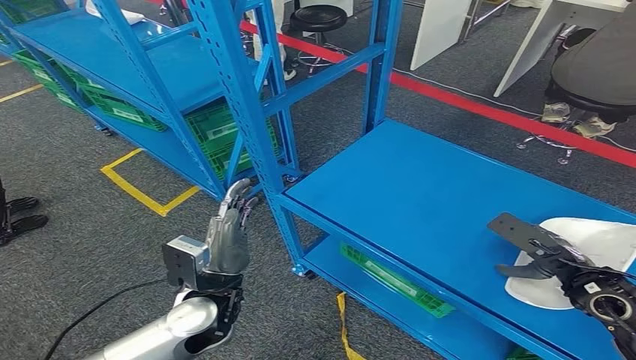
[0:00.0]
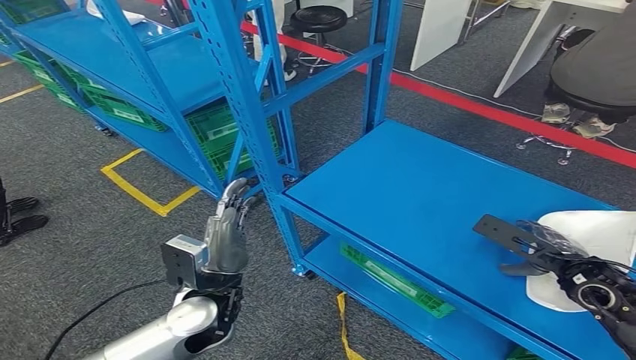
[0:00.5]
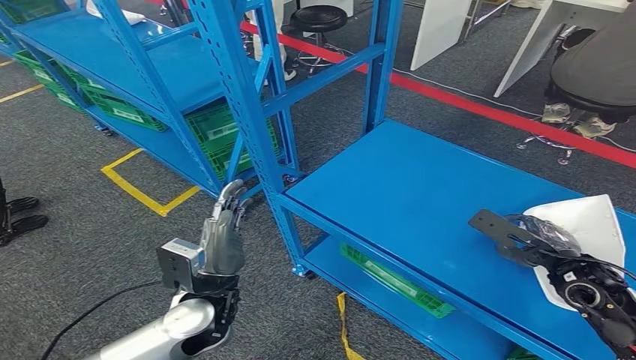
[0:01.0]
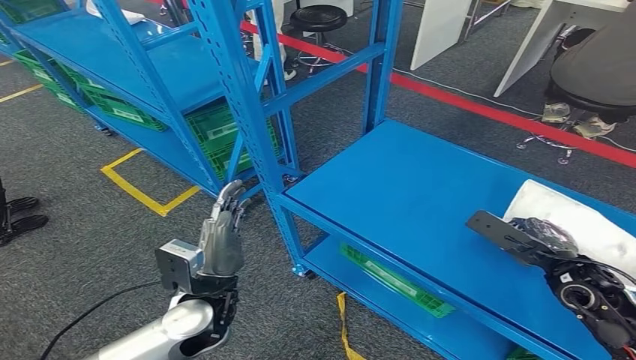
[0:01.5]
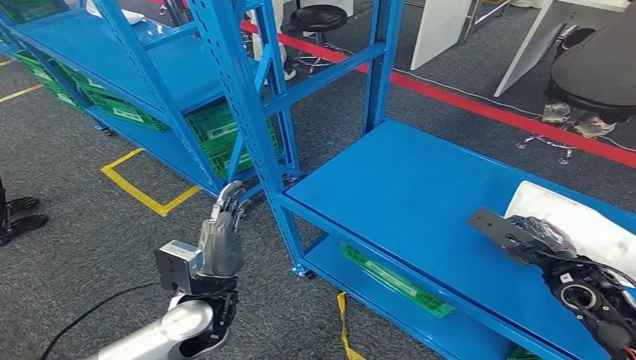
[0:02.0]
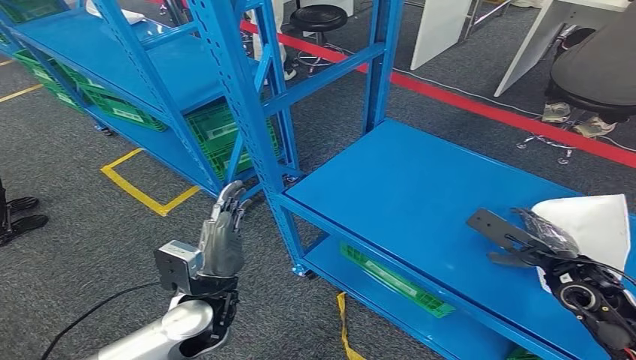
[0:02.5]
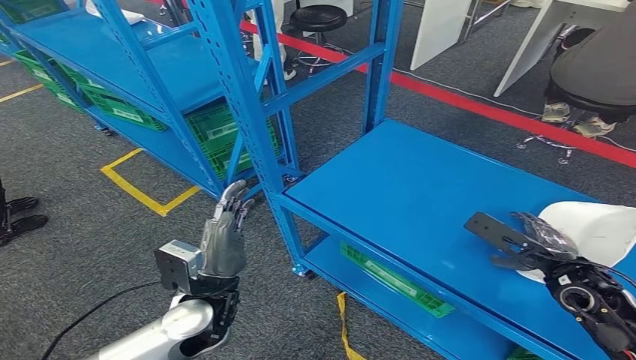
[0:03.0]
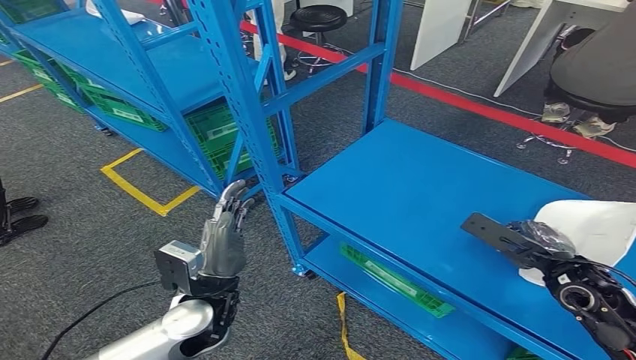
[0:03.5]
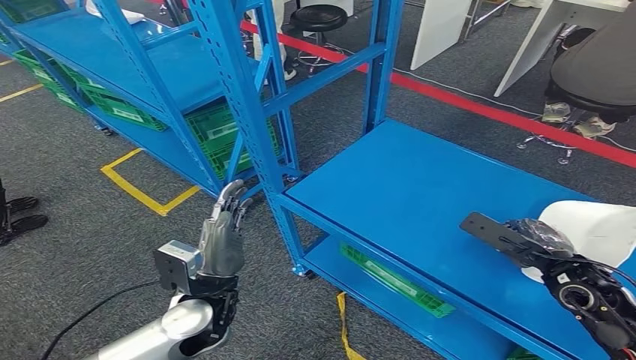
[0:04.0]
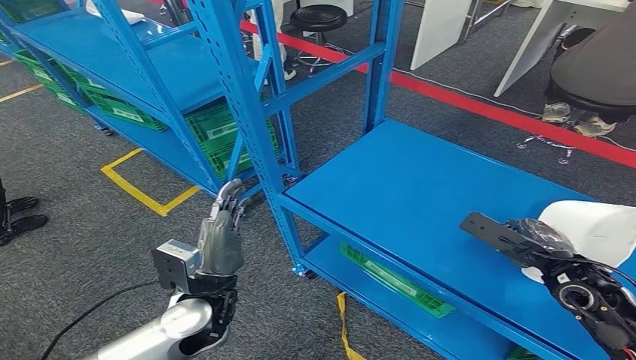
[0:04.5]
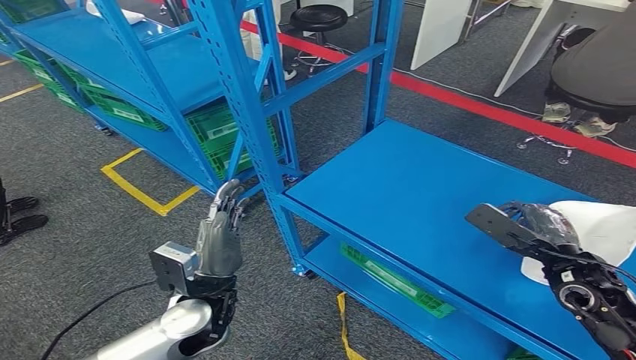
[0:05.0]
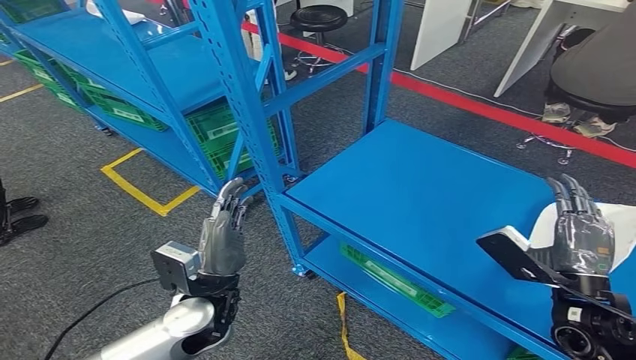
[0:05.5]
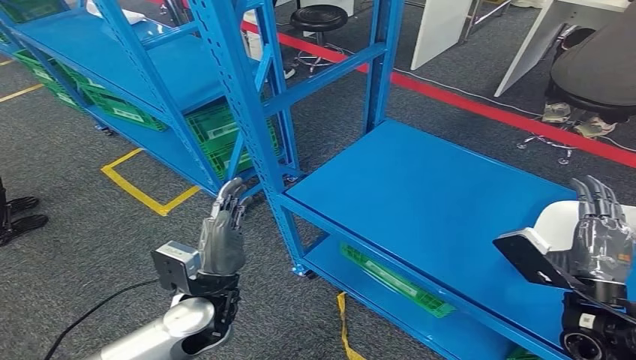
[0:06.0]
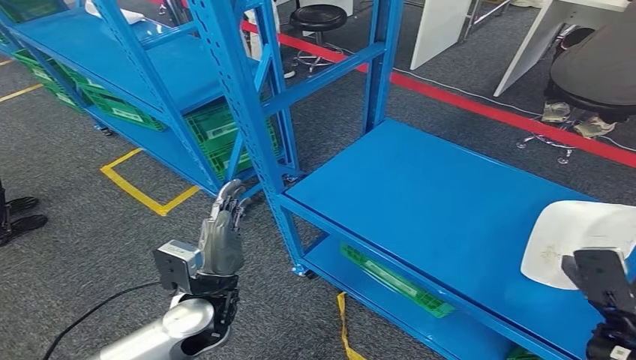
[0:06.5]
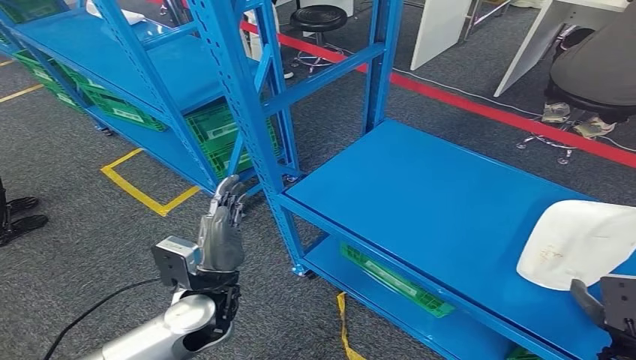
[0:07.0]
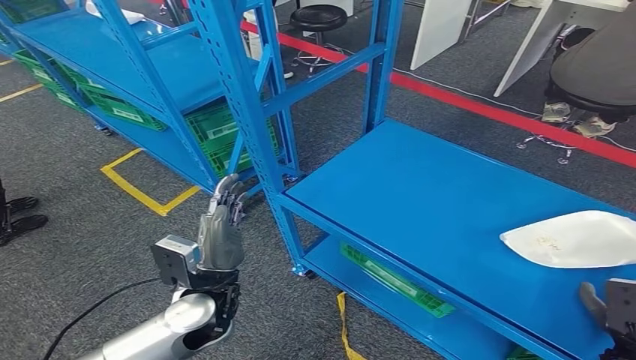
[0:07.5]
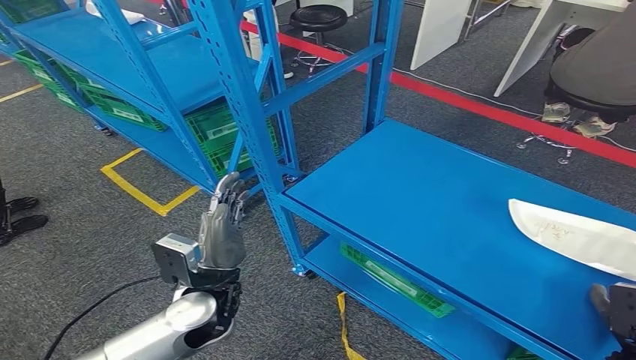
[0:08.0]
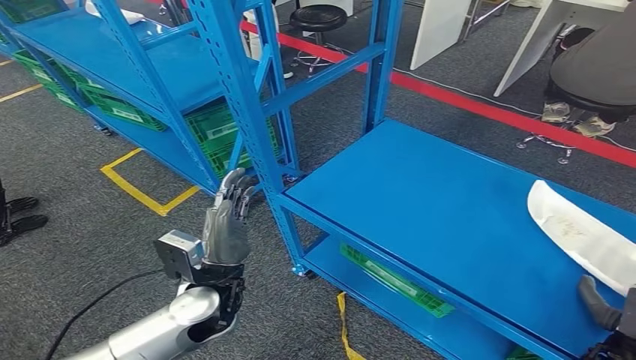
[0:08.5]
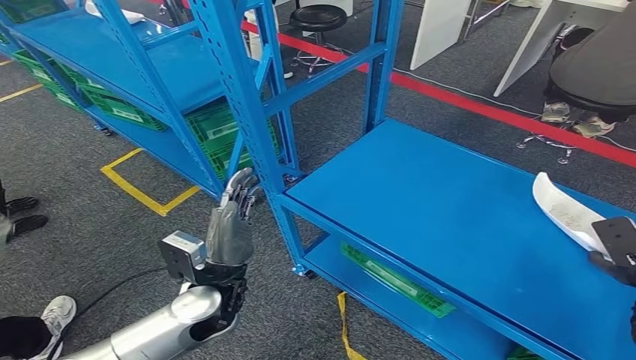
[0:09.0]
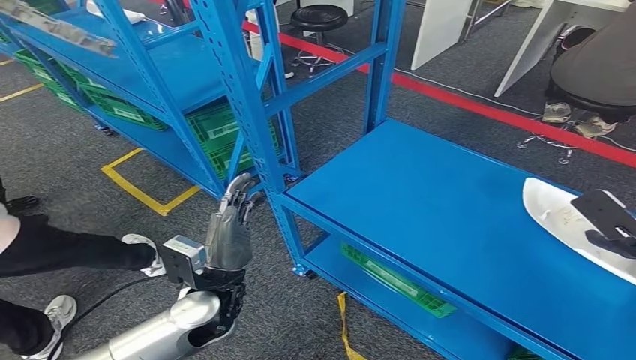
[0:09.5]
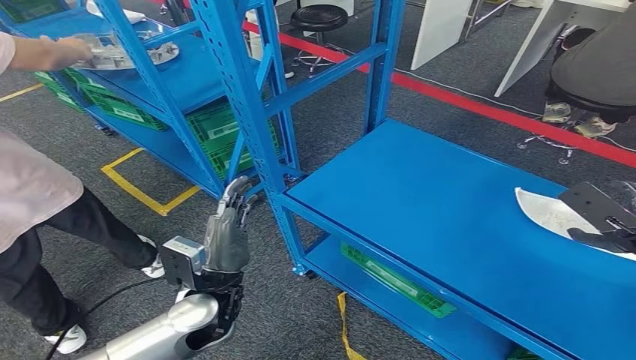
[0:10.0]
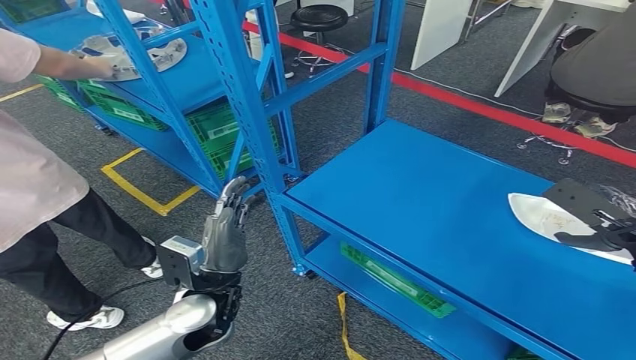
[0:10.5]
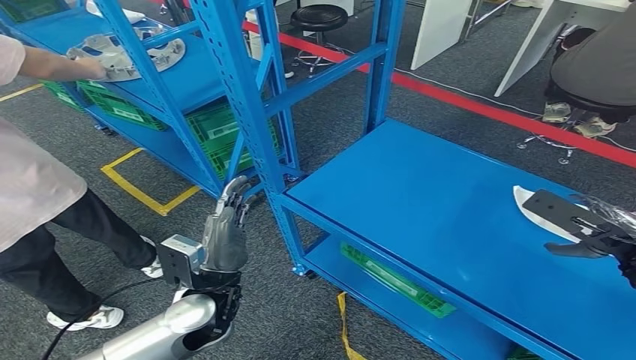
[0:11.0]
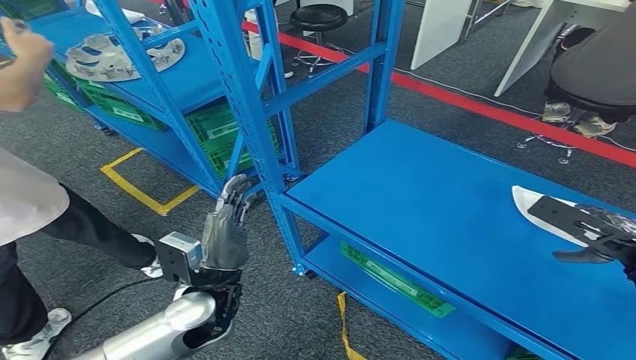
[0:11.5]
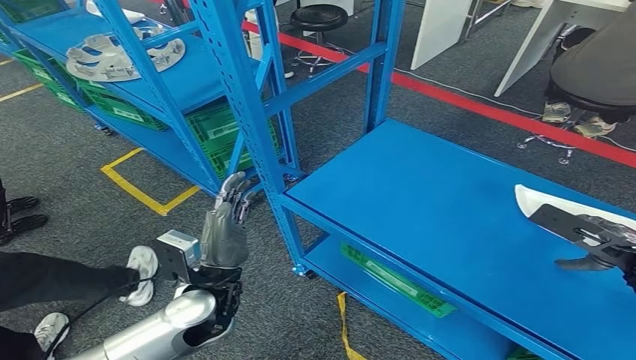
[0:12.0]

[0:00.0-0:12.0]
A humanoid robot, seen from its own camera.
0:00.0 to 0:04.0: The hands stay close to where they were, moving slightly.
0:04.0 to 0:06.0: The right hand heads backward, covering roughly 5 cm.
0:06.0 to 0:08.0: The right hand goes about 15 cm downward and to the right.
0:08.0 to 0:10.0: The right hand is displaced upward and forward by approximately 20 cm.

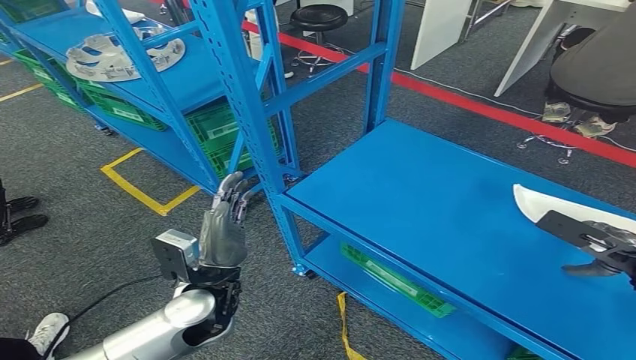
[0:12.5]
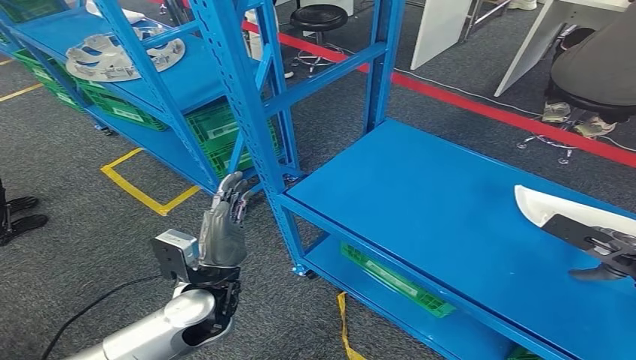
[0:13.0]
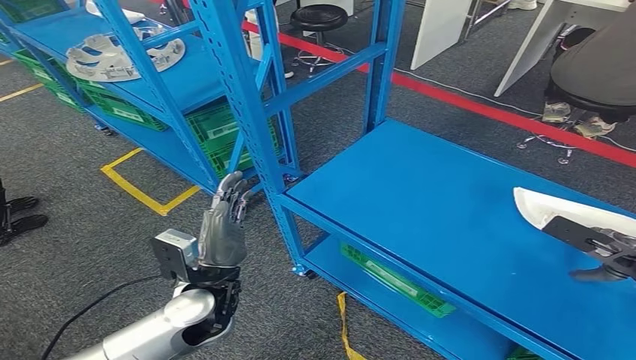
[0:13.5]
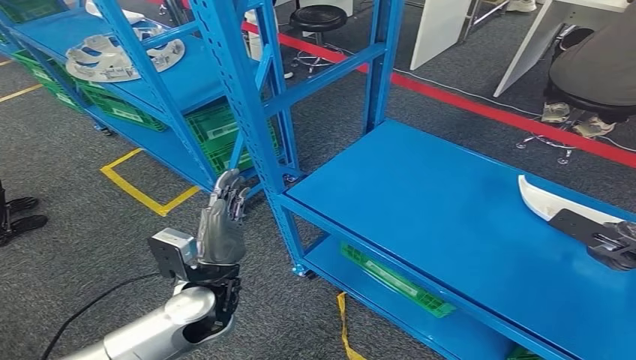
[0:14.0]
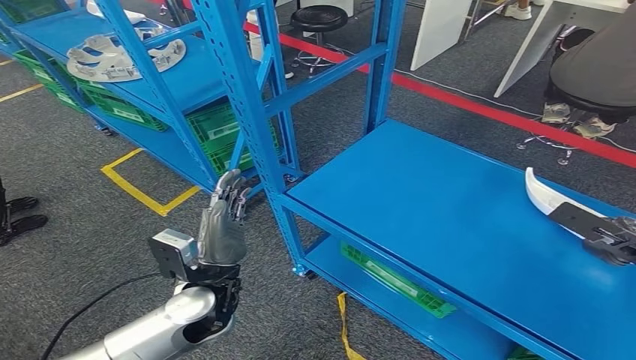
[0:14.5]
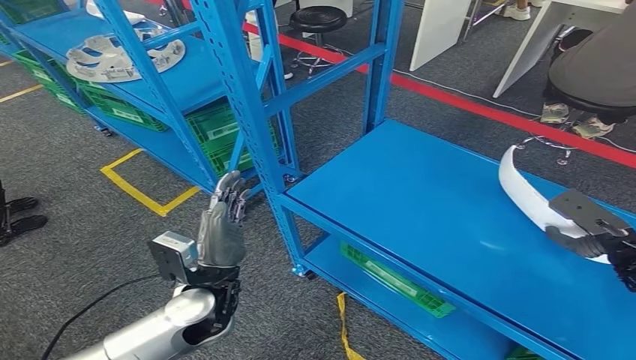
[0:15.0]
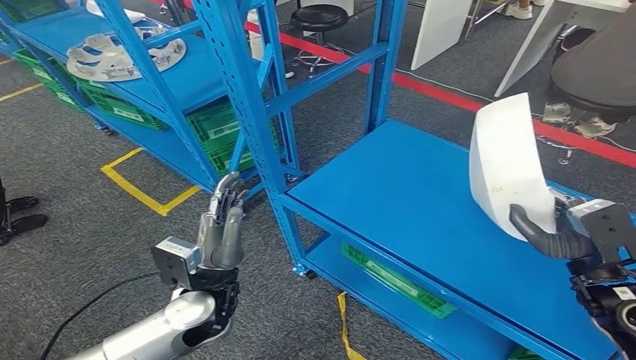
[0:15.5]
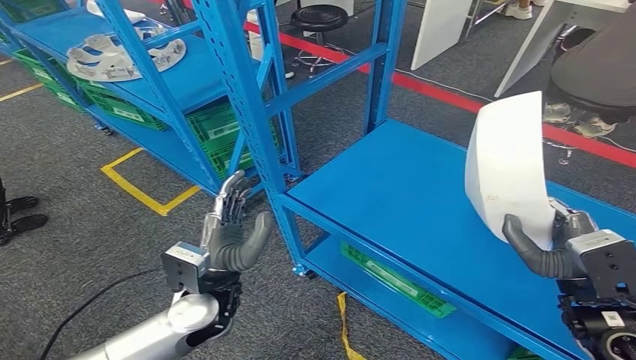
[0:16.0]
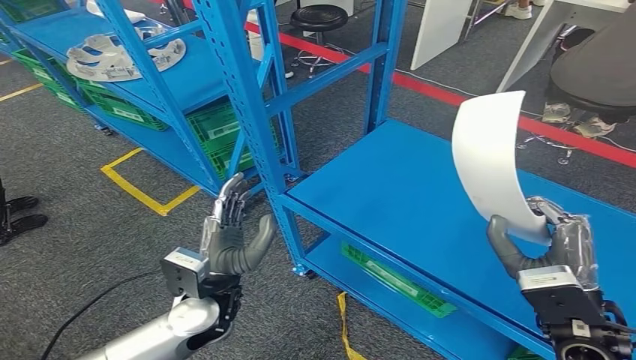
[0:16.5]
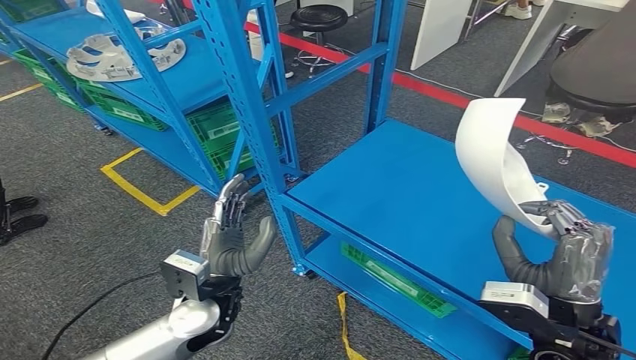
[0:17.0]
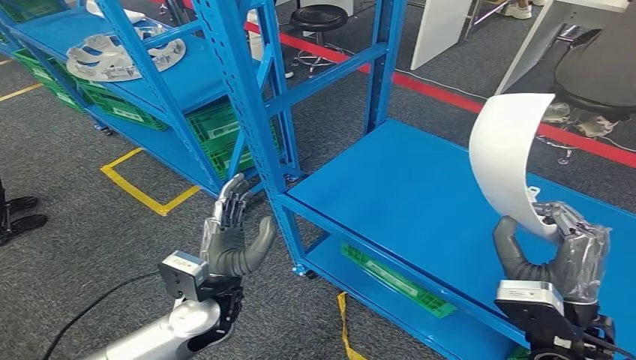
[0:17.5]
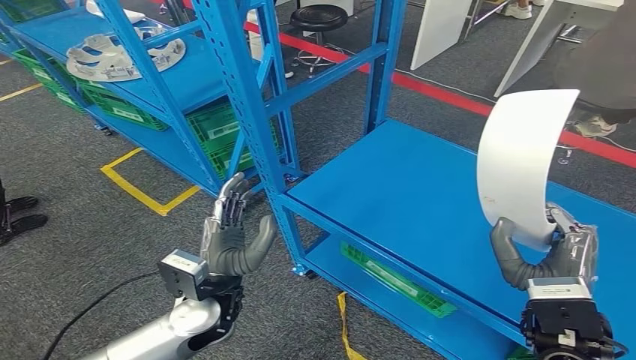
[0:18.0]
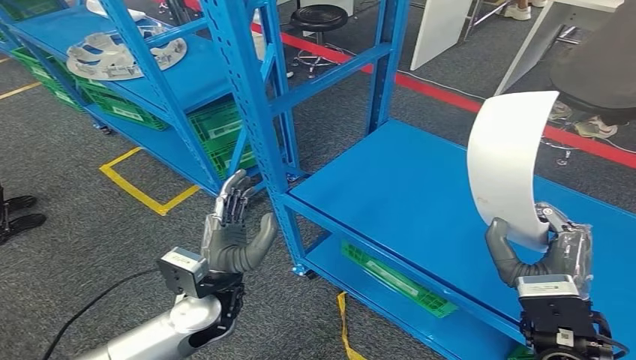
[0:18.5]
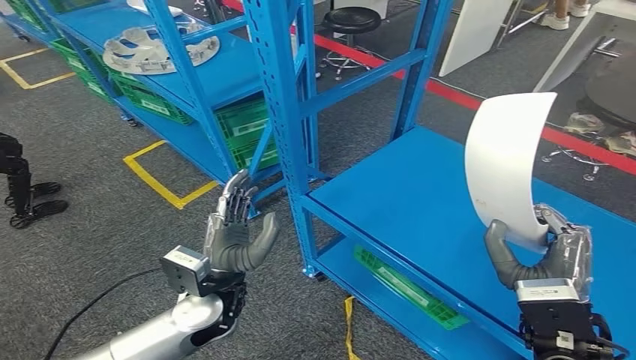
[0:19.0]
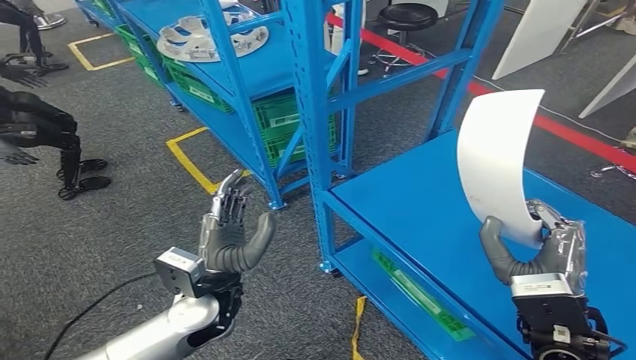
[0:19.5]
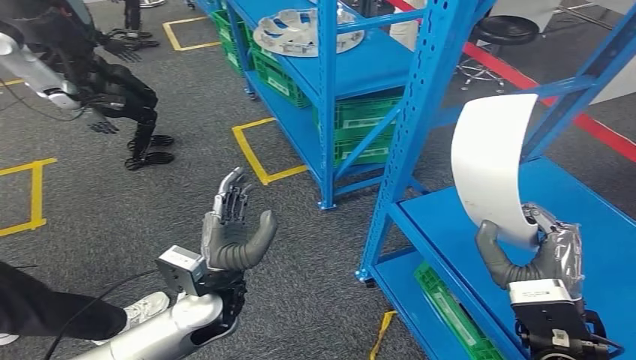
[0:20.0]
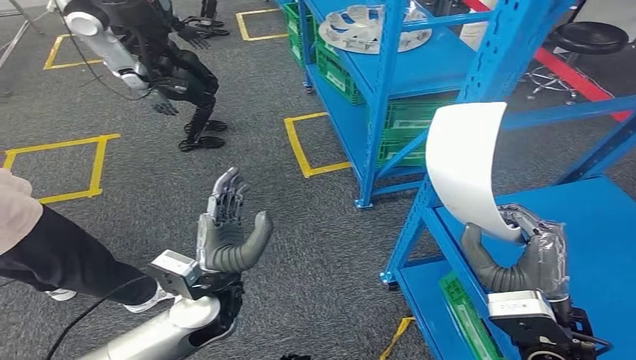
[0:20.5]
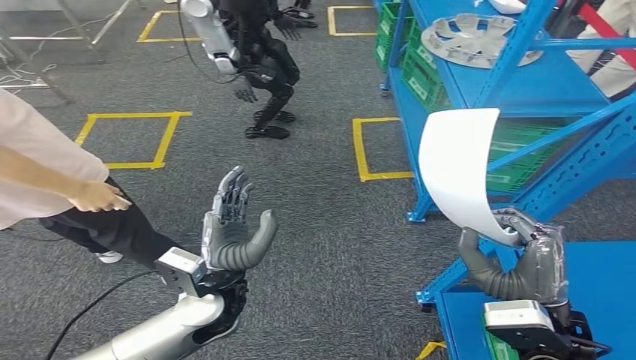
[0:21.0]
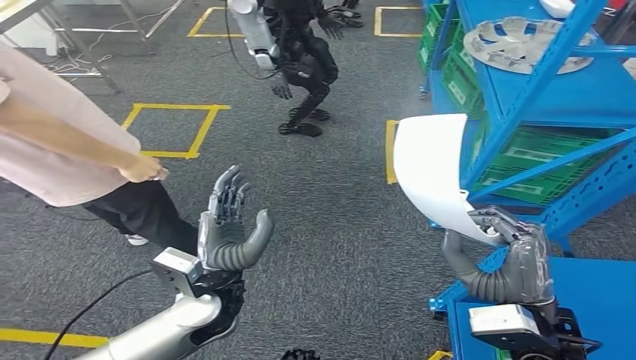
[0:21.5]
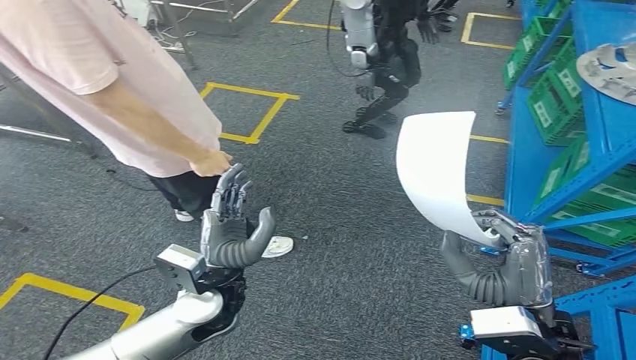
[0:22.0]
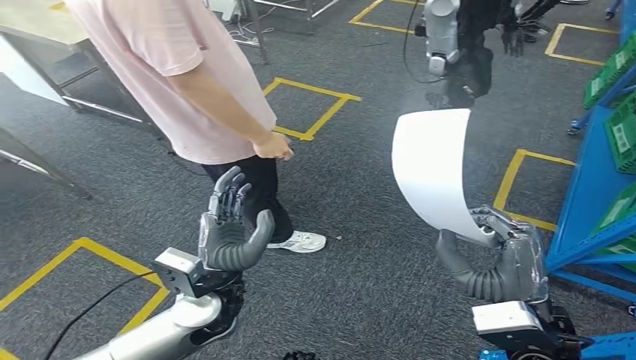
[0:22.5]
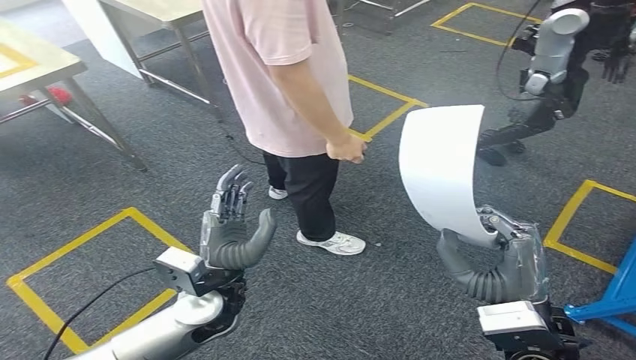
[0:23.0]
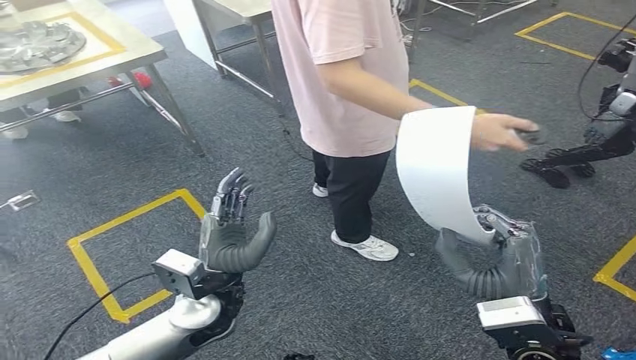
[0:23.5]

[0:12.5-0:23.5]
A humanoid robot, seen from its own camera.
Step, 0:12.5 to 0:18.0: Pick up the small component from the shelf.
0:12.5 to 0:14.5: The hands stay close to where they were, moving slightly.
0:14.5 to 0:16.0: The right hand travels to the left and backward by approximately 15 cm.
0:16.0 to 0:18.0: The right hand goes some 5 cm to the left.
